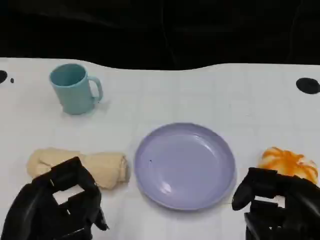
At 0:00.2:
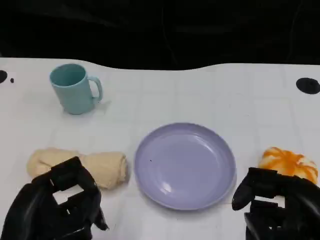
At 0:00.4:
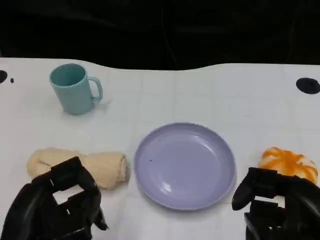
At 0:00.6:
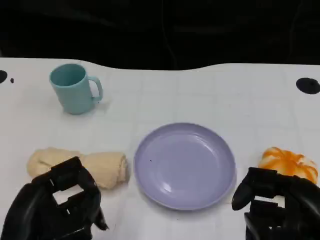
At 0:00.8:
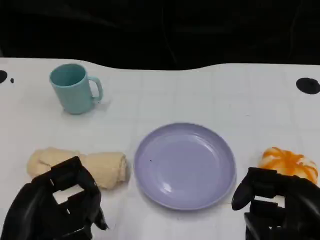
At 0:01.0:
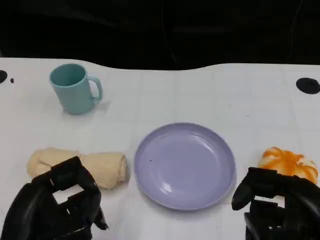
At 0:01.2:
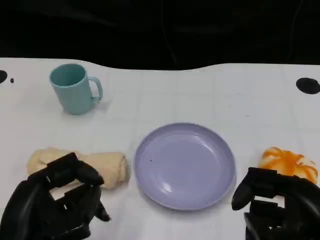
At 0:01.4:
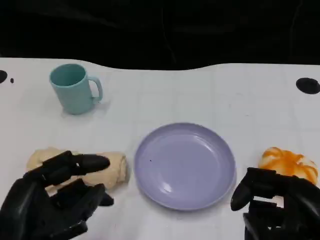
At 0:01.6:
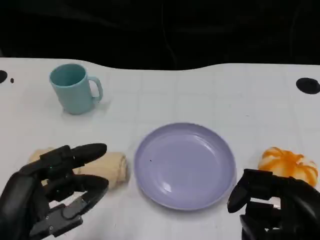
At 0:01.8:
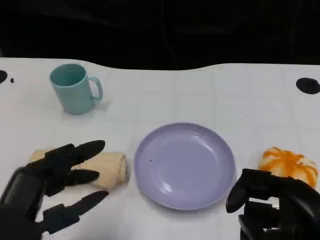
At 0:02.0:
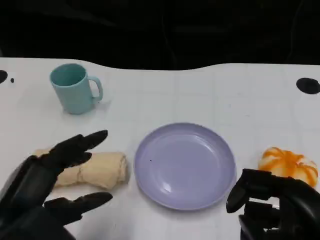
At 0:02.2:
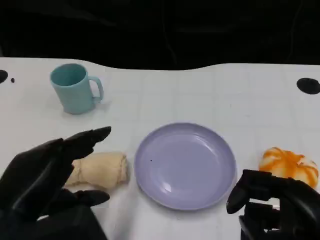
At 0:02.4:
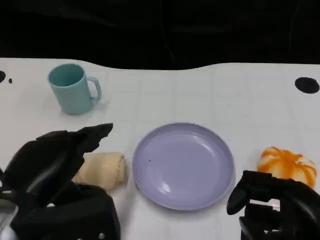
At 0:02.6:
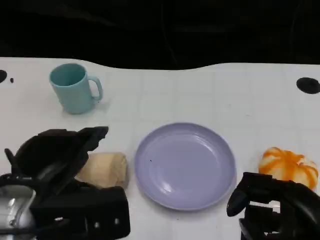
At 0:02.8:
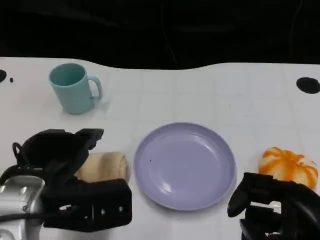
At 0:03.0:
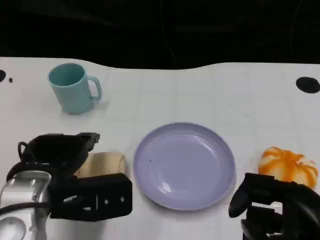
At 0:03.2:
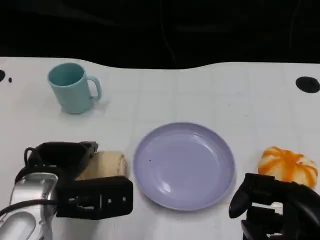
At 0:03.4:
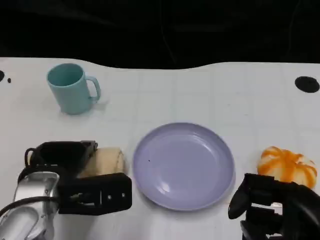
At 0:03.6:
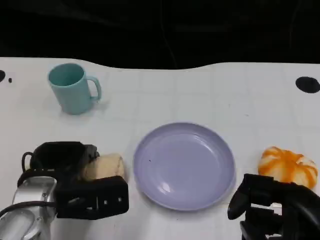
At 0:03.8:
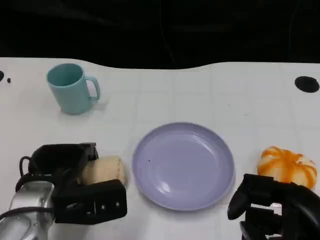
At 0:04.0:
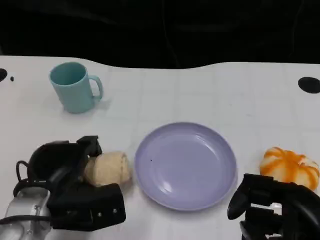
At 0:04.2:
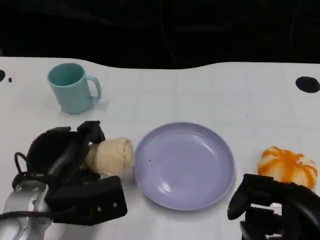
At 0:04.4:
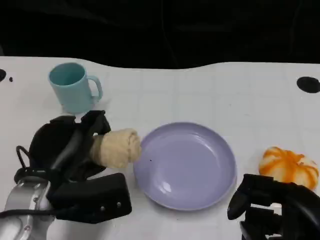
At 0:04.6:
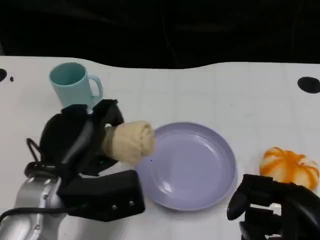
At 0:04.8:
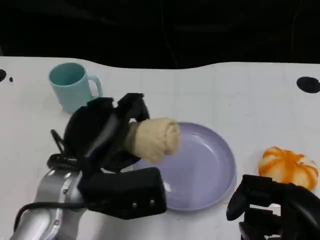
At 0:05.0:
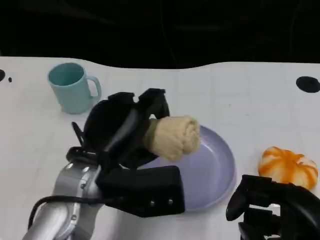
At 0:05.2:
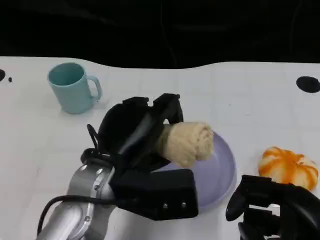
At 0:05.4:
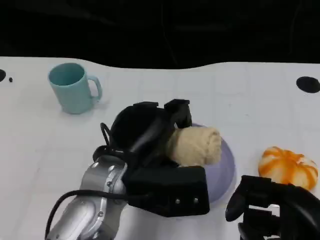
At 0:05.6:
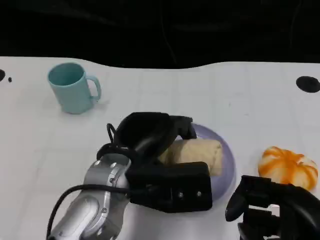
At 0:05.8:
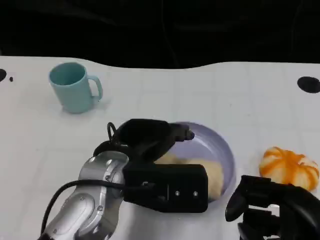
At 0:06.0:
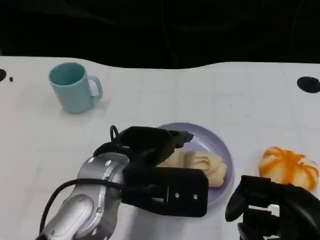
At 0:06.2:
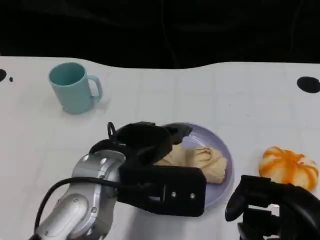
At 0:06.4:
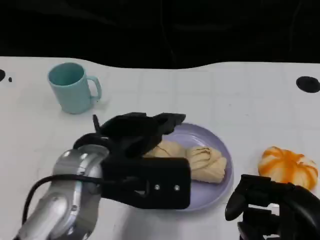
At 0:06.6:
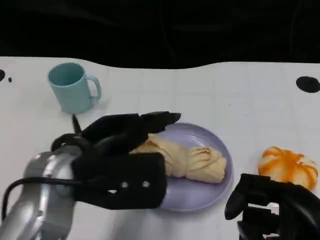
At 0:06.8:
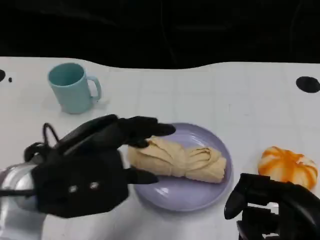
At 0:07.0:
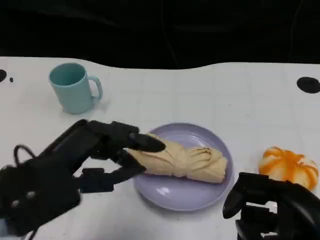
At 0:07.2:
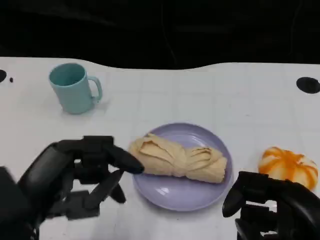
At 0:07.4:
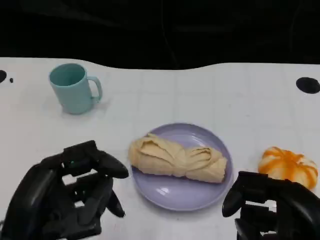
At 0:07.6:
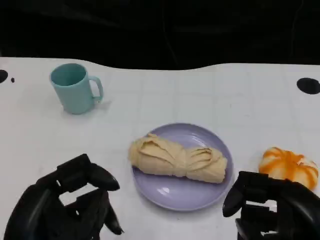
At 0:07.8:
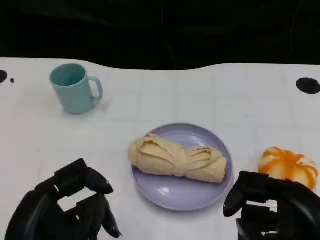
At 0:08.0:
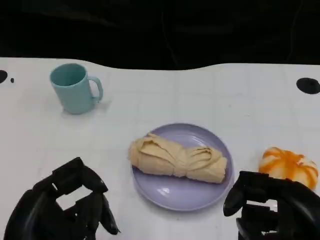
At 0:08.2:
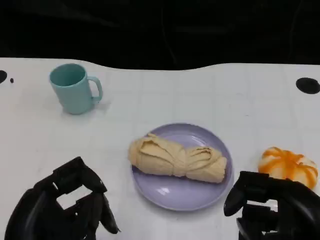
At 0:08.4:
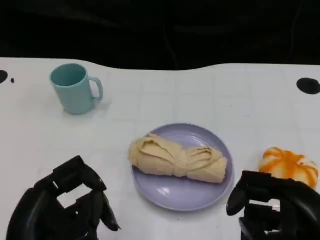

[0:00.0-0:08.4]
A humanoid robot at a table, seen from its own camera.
Task of the whole recording: Grasp the towel on the left side of the plate with the left hand and place it into the plate.
0:00.0 to 0:01.4: The hands make only small movements.
0:01.4 to 0:02.8: The left hand moves forward, about 10 cm.
0:02.8 to 0:04.2: The left hand moves roughly 5 cm.
0:04.2 to 0:05.6: The left hand moves to the right and upward, about 10 cm.
0:05.6 to 0:07.0: The left hand heads to the left and backward, covering about 15 cm.
0:07.0 to 0:08.4: The left hand goes roughly 5 cm backward.

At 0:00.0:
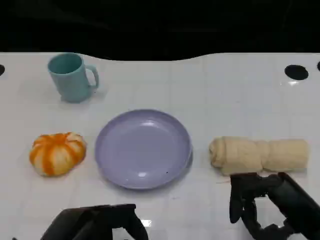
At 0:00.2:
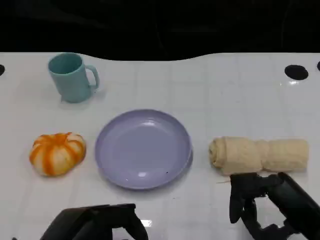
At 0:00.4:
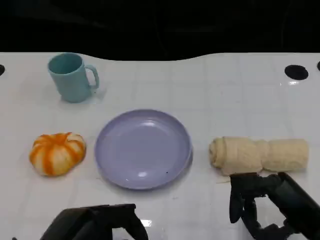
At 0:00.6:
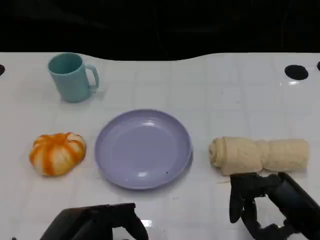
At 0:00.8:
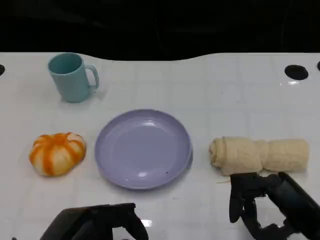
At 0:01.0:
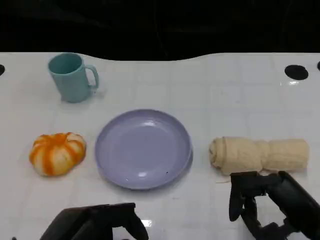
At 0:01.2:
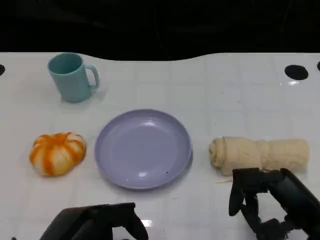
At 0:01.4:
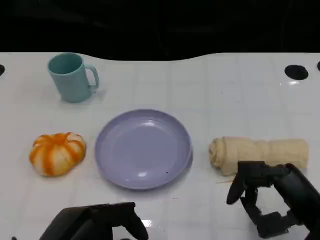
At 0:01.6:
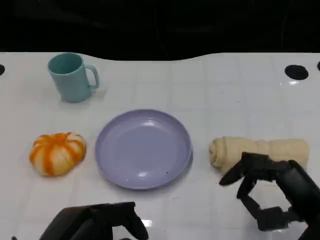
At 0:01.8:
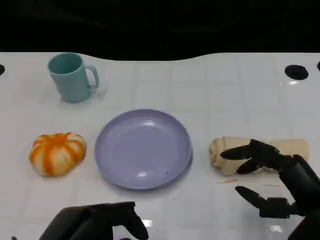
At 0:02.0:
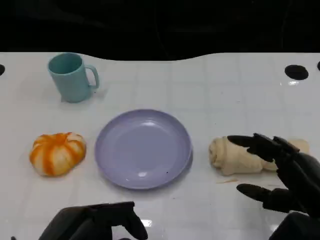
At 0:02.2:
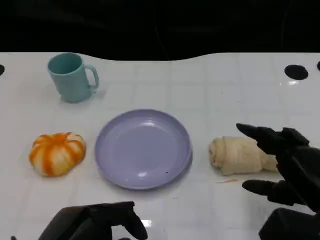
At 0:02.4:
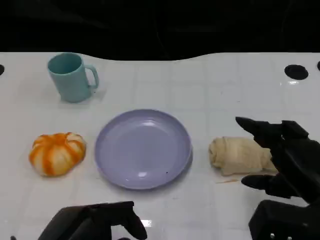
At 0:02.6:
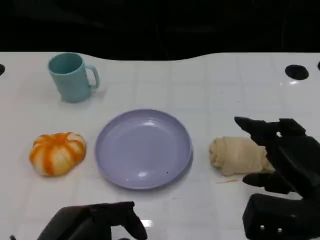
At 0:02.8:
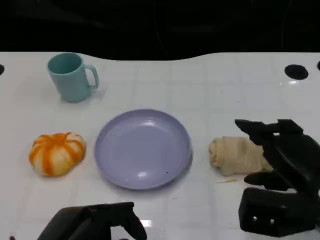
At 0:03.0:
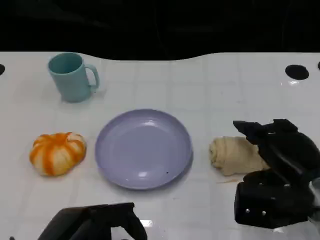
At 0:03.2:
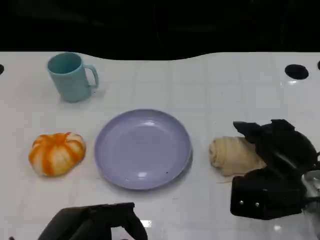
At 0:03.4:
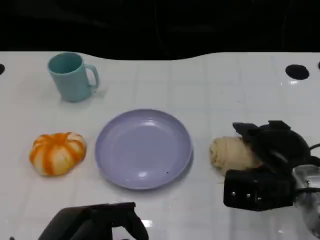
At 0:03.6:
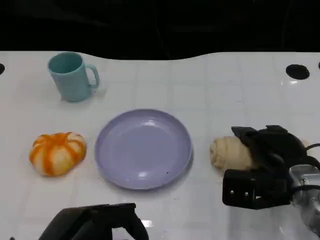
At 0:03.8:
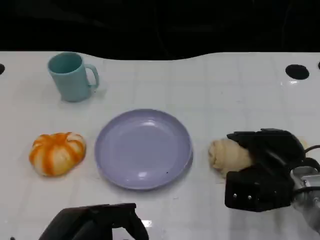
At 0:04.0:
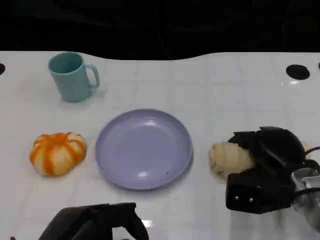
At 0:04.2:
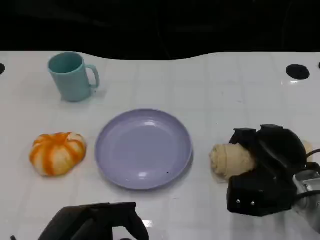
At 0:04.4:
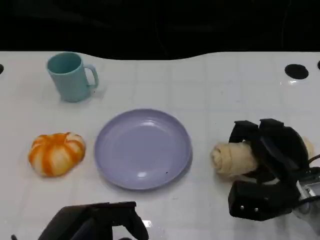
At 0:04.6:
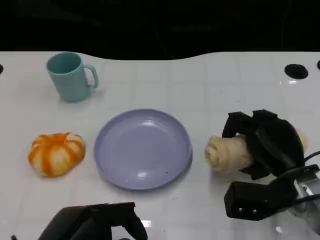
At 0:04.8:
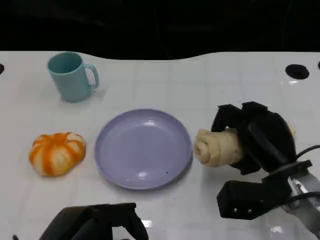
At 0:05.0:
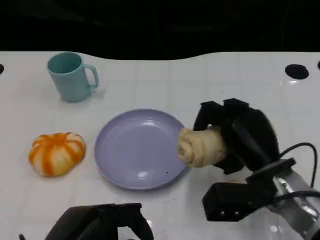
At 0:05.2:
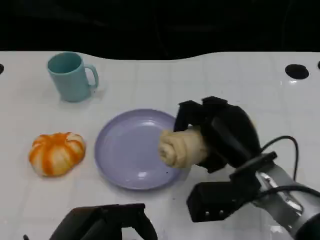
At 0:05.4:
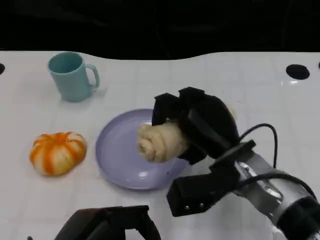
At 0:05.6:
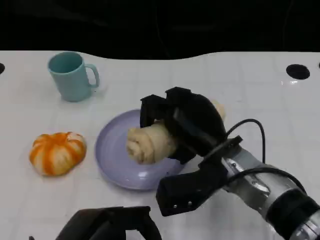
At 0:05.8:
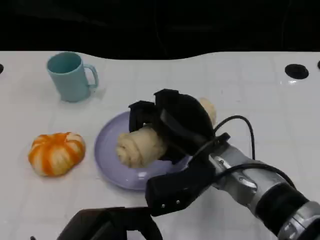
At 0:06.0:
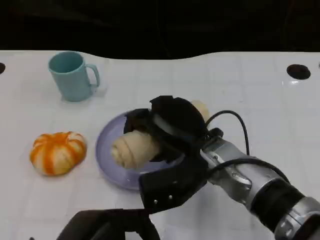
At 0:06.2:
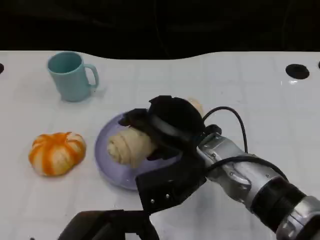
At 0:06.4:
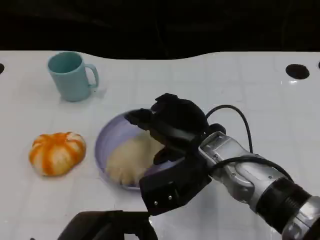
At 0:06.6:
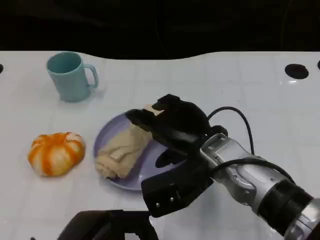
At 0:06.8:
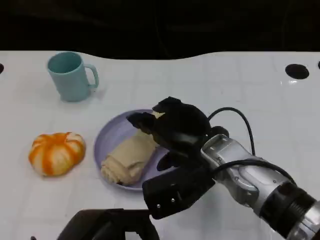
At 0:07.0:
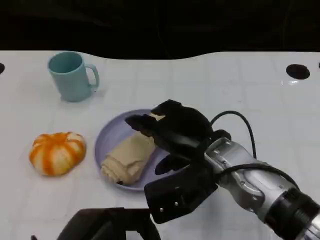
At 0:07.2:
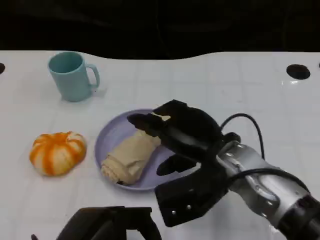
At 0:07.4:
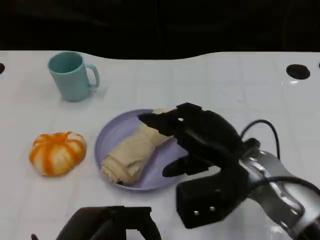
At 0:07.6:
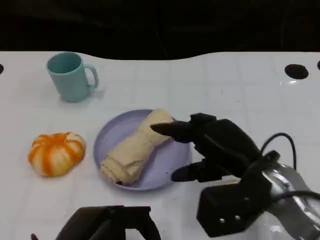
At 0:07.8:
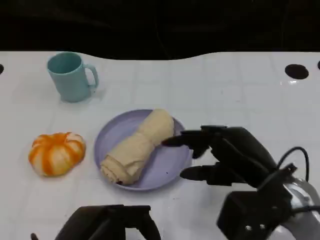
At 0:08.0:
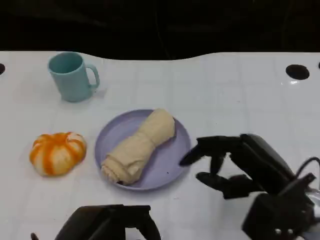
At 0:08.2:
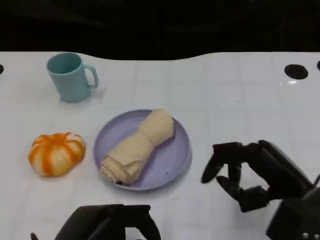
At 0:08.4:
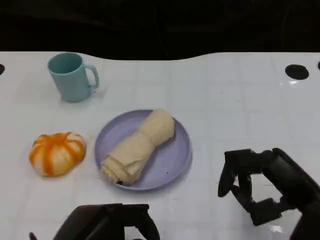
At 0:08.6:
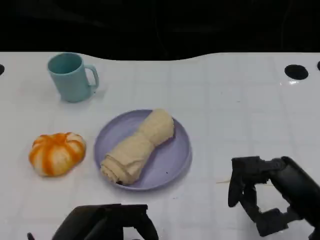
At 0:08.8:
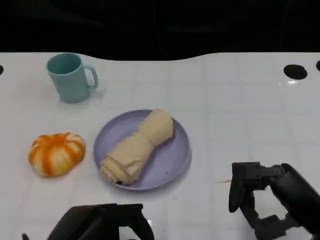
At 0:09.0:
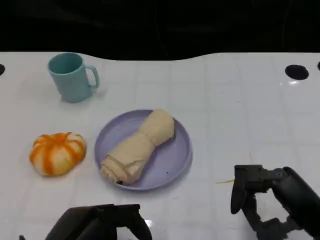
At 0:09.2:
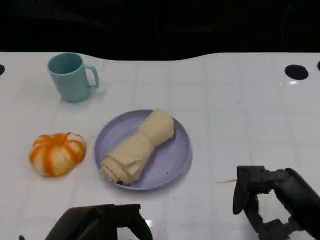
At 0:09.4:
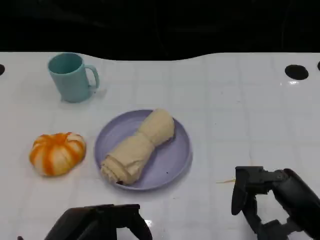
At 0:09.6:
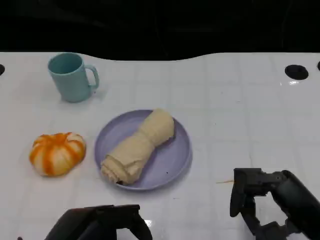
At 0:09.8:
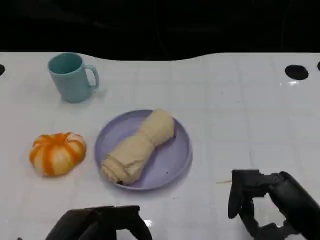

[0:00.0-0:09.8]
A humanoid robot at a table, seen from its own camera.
Task of the whole recording: Grasp the towel on the left side of the plate with the left hand and place it into the plate.
0:00.0 to 0:01.4: The hands stay close to where they were, moving slightly.
0:01.4 to 0:02.8: The right hand ends up about 5 cm from where it was.
0:02.8 to 0:04.2: The right hand is displaced downward by some 5 cm.
0:04.2 to 0:05.6: The right hand moves to the left and upward, roughly 15 cm.
0:07.0 to 0:08.4: The right hand moves to the right and backward, about 15 cm.
0:08.4 to 0:09.8: The hands stay close to where they were, moving slightly.

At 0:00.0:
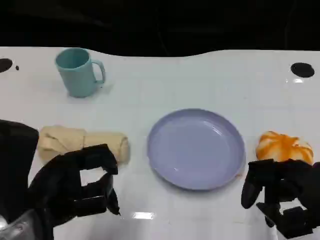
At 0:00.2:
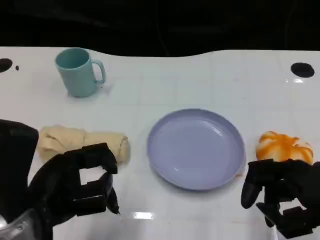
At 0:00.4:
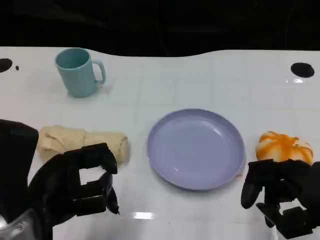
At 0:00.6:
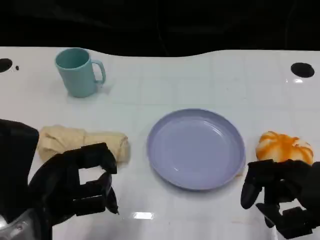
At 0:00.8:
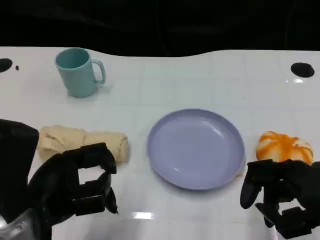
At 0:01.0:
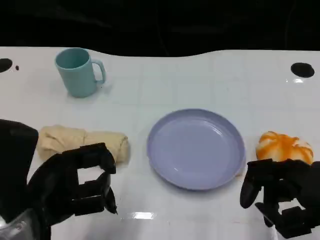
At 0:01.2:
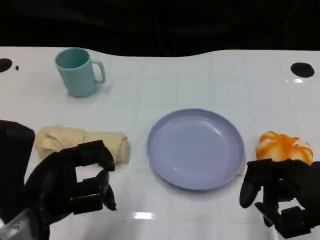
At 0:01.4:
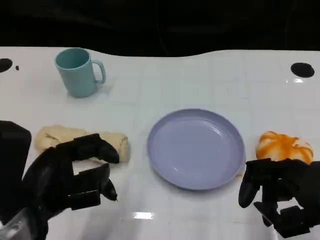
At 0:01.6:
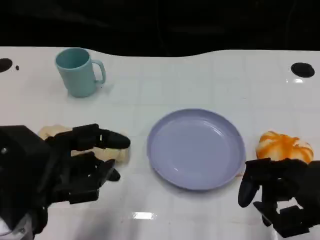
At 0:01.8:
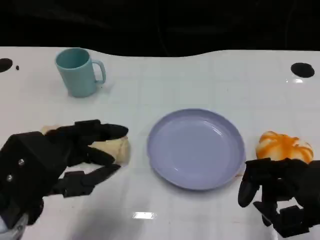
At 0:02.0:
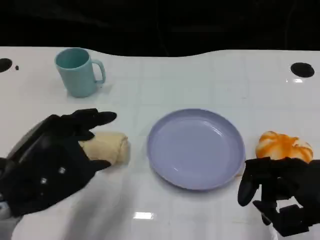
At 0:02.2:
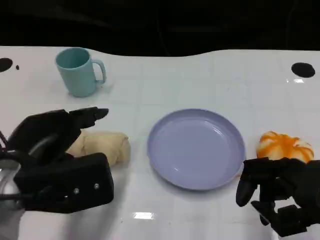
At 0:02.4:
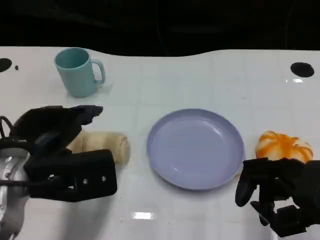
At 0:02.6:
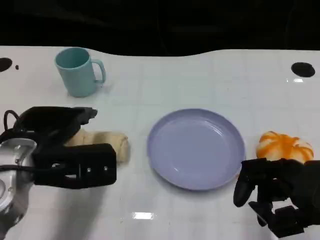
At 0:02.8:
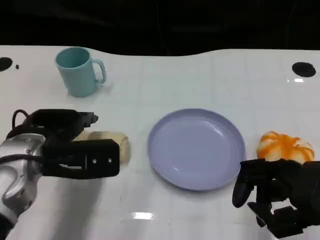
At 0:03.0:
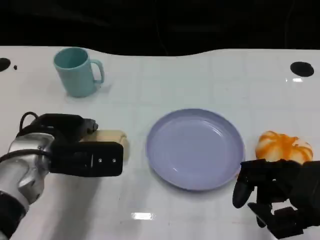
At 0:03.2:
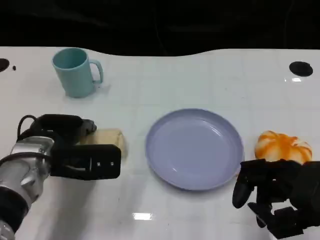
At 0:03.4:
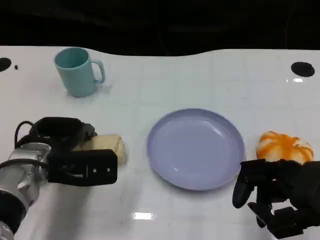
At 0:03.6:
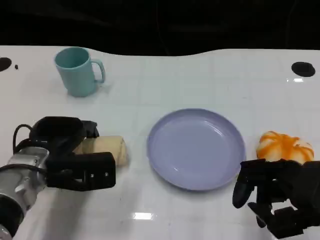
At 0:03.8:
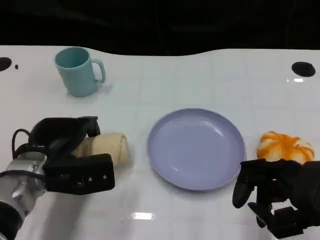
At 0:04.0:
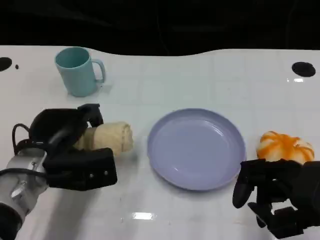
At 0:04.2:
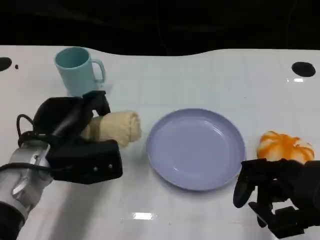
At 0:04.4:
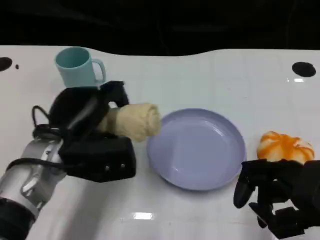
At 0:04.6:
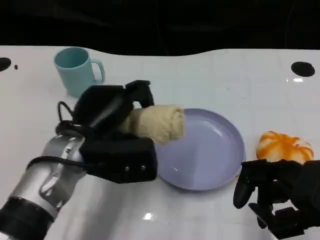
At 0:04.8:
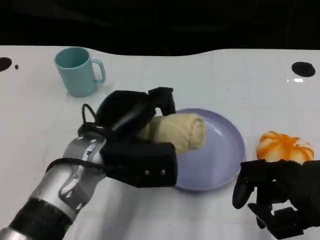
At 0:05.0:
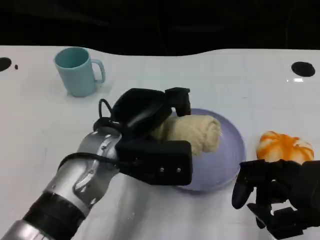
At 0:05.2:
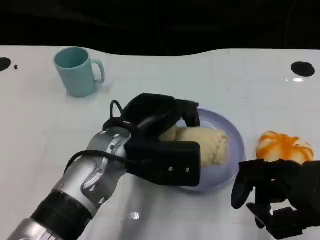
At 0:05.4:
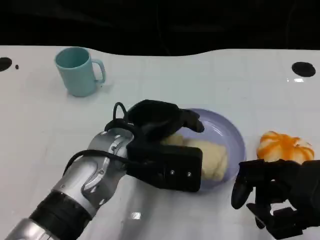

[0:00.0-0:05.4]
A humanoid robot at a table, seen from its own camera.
Task of the whole recording: Grasp the towel on the left side of the plate with the left hand and place it into the plate.
0:00.0 to 0:01.4: There are only small adjustments of the hands.
0:01.4 to 0:02.8: The left hand is displaced forward by about 10 cm.
0:04.0 to 0:05.4: The left hand shifts about 15 cm to the right and upward.
